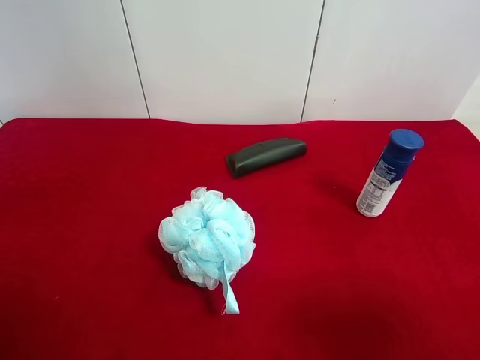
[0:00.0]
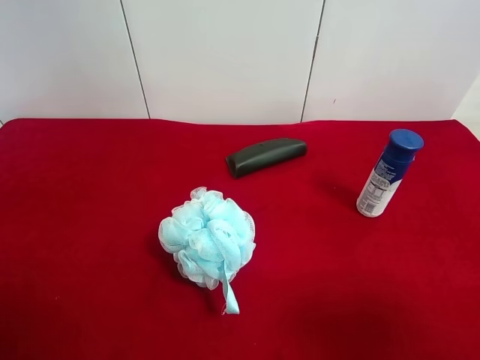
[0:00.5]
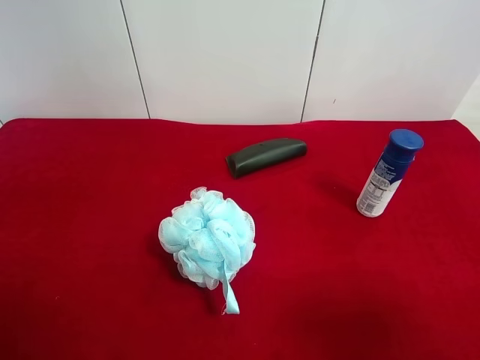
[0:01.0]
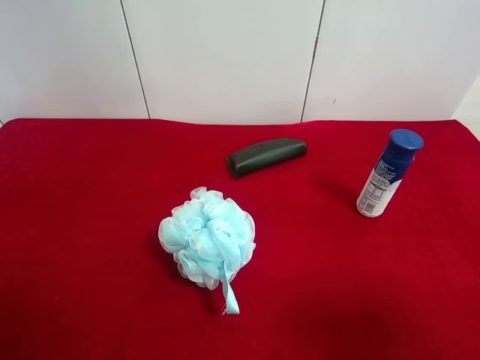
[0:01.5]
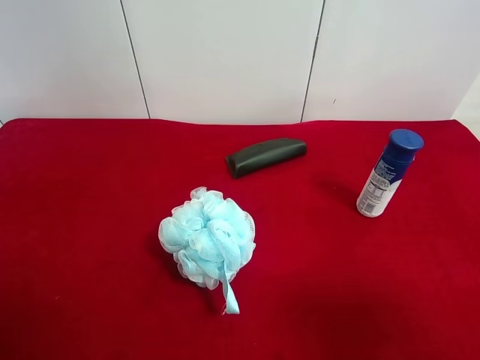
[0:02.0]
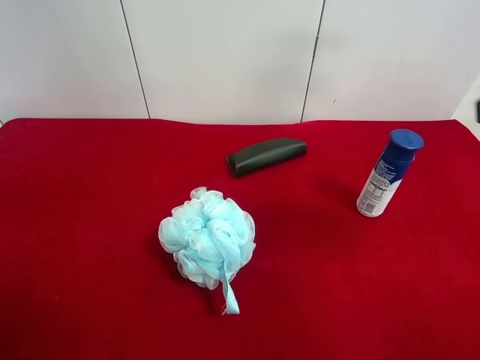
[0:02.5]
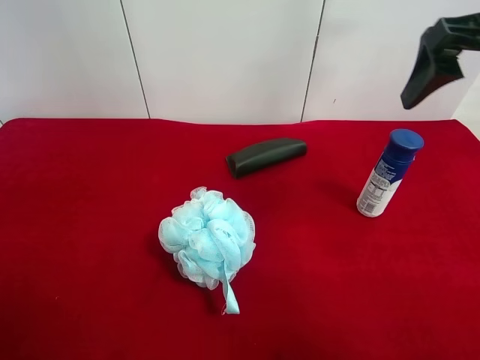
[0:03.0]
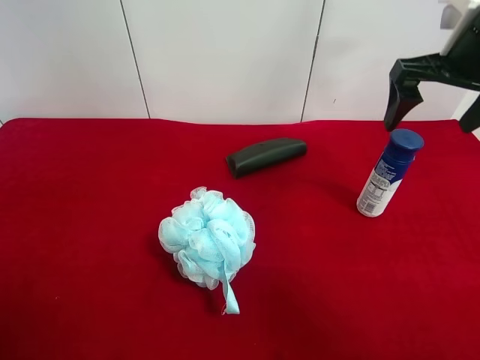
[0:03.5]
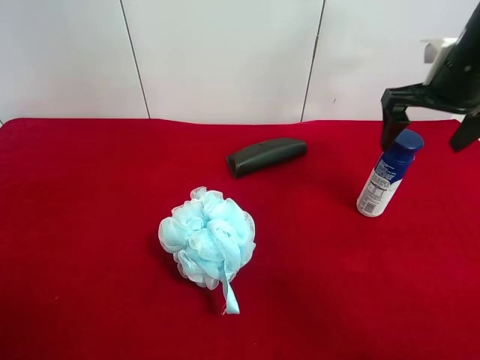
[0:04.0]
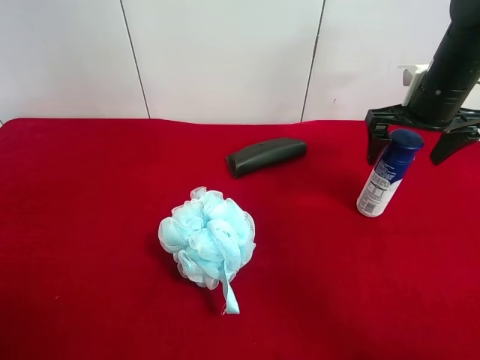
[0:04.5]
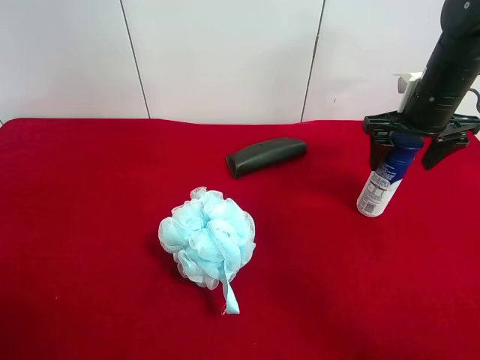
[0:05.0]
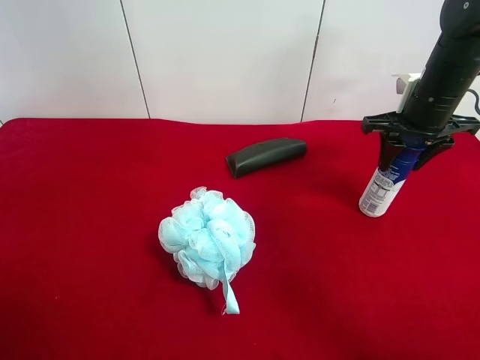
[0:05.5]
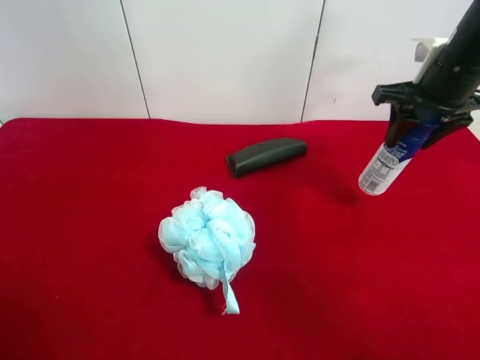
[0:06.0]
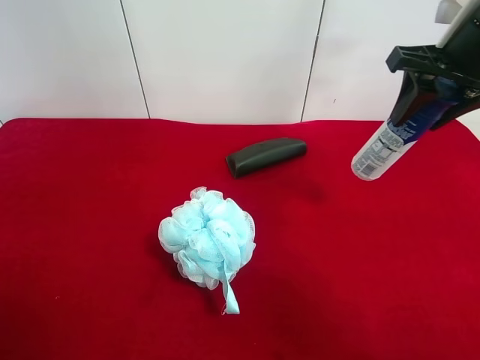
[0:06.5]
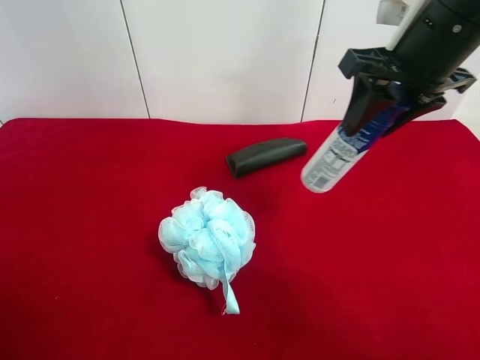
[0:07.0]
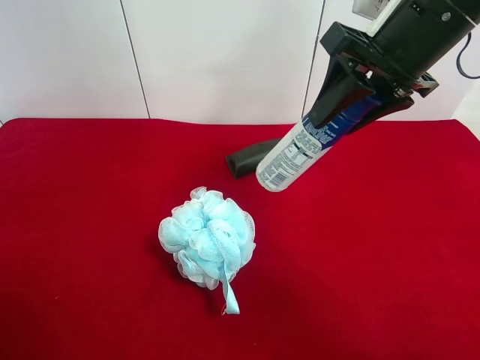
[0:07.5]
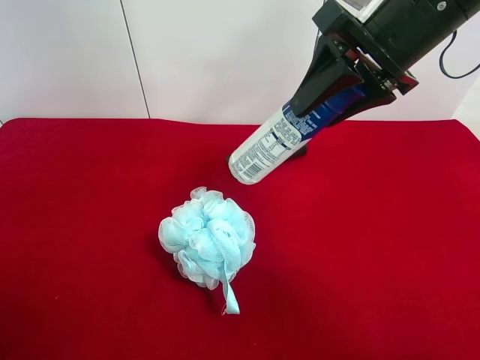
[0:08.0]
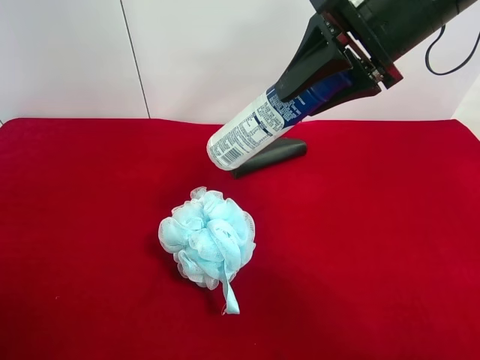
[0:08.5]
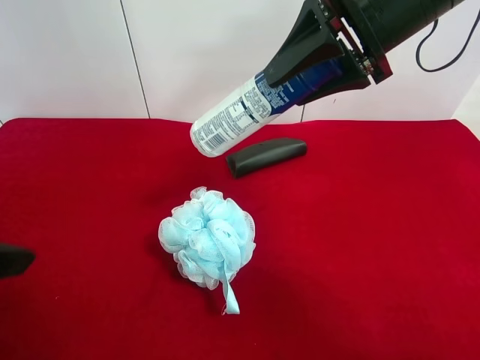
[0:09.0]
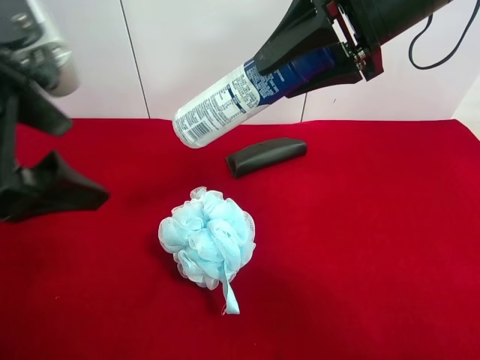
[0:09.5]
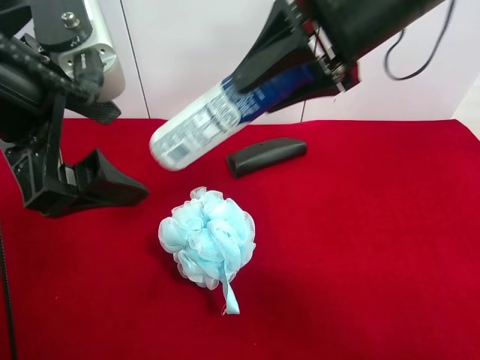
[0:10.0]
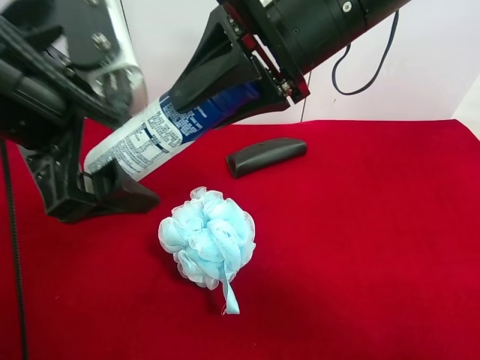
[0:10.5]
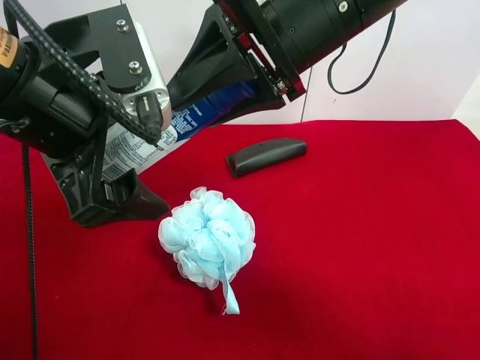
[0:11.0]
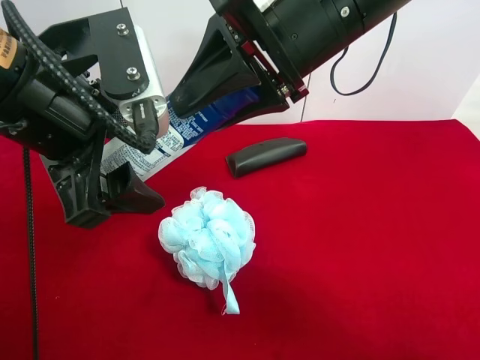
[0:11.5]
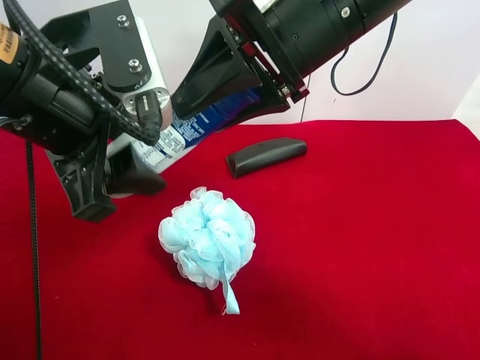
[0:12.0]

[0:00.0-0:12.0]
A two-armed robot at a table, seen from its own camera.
Task of the whole recording: use the right gripper to pick up the item and transfer it from the right gripper to the left gripper.
Step, 0:00.0 to 0:05.0: Use the right gripper to grab the yogurt on the right side of the table.
0:02.0 to 0:04.0: The right gripper is displaced forward by roughly 30 cm.
0:04.0 to 0:06.0: The right gripper closes its fingers.
0:06.0 to 0:08.0: The right gripper heads to the left, upward and backward, covering roughly 15 cm.
0:08.0 to 0:10.0: The left gripper goes roughly 20 cm forward and to the right.
0:10.0 to 0:12.0: The left gripper closes up.

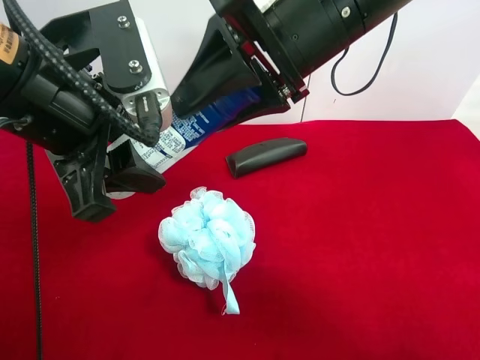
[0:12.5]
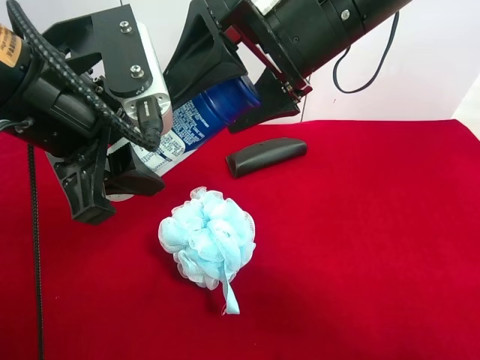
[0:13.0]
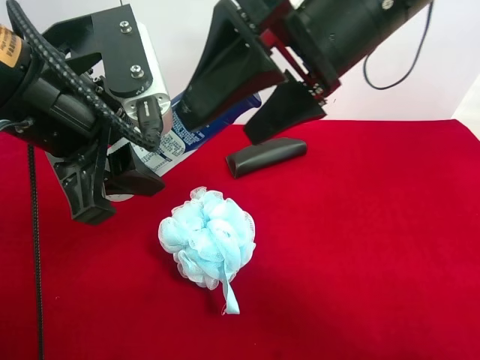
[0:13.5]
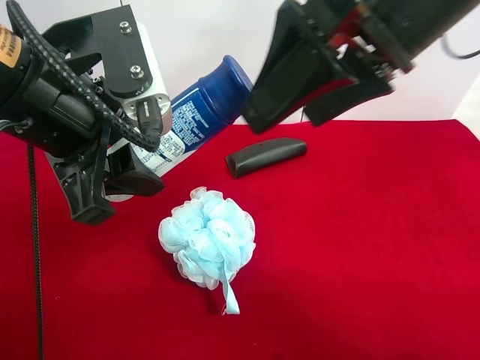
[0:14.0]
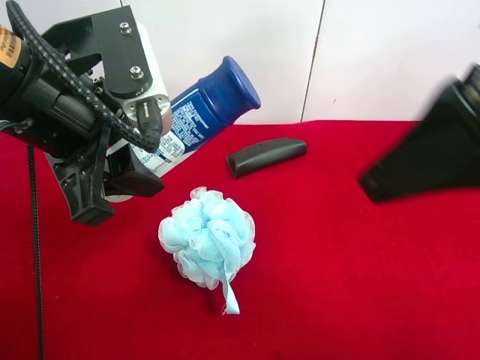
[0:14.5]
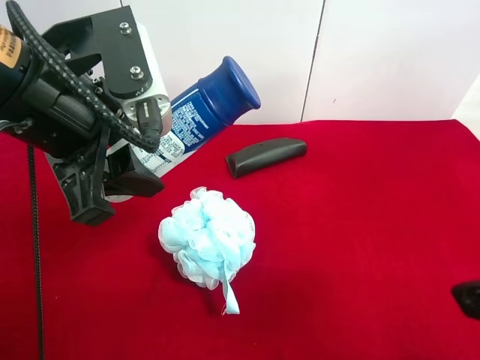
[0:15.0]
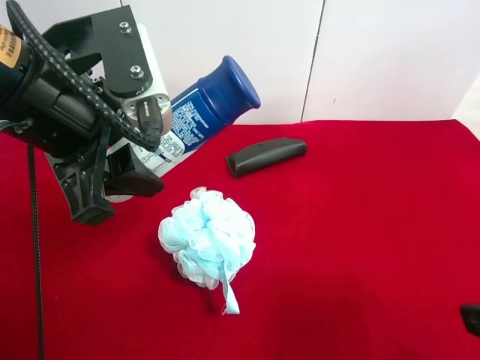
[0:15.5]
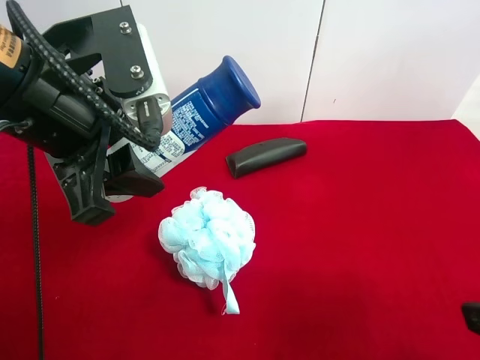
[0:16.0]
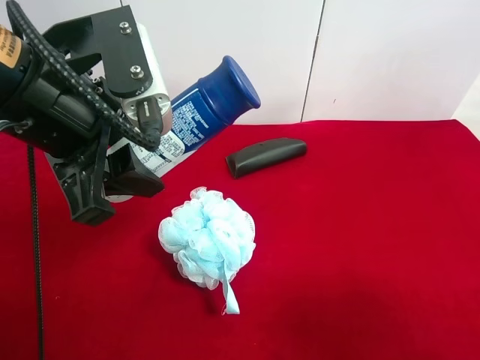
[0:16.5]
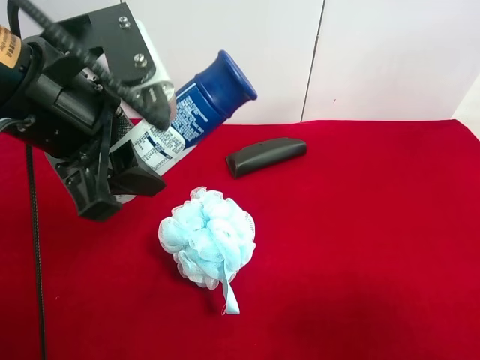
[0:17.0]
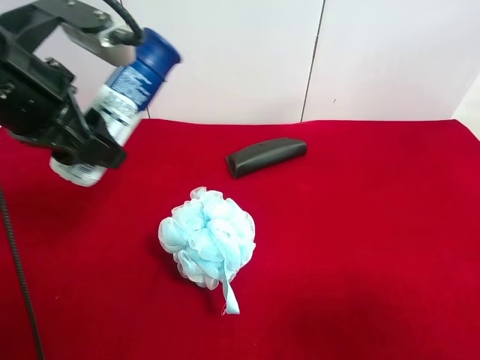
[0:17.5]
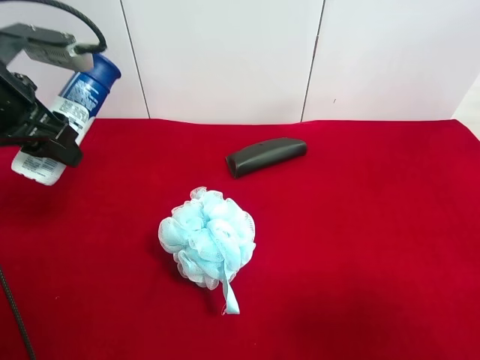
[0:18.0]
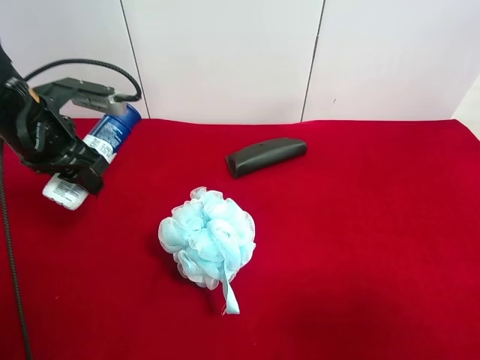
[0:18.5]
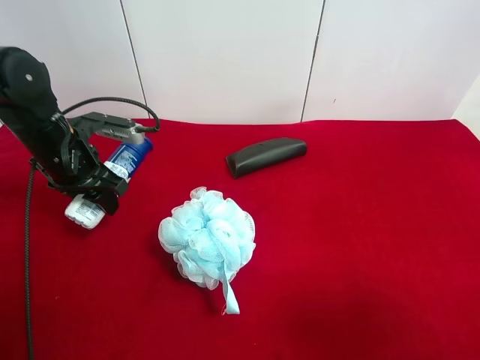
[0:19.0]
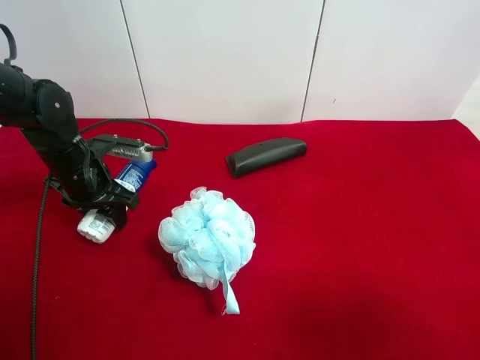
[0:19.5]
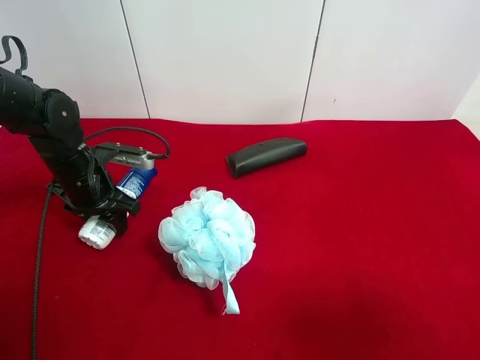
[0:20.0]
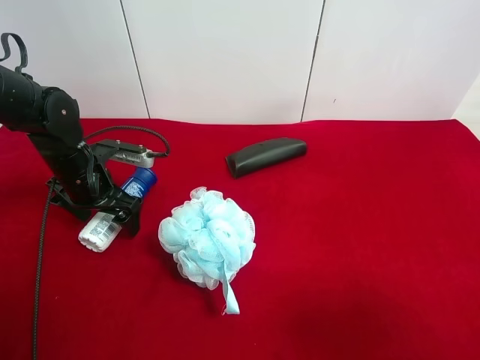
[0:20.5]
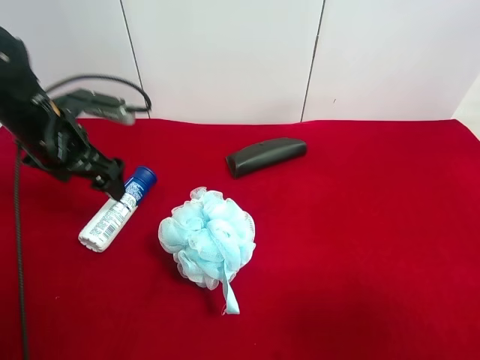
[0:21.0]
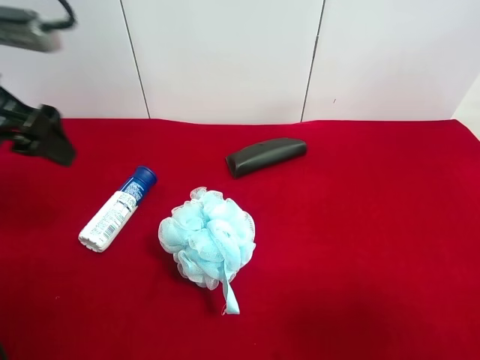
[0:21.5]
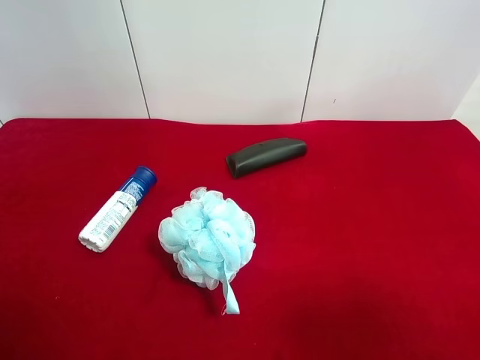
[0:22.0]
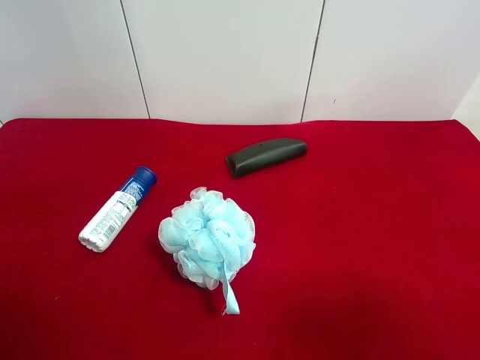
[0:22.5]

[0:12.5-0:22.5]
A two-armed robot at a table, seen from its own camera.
Task of the whole recording: use the right gripper to pick up the item and transfer it from the right gripper to the left gripper.
Step, 0:14.5 to 0:21.0: The left gripper places yogurt on the left side of the table.
0:12.5 to 0:14.5: The right gripper goes some 15 cm backward and to the right, and opens.
0:14.5 to 0:16.5: The right gripper shifts some 20 cm backward, to the right and downward.
0:16.5 to 0:18.5: The left gripper shifts approximately 20 cm forward, to the left and downward.
0:18.5 to 0:20.5: The left gripper travels downward by approximately 10 cm, and opens its fingers.
0:20.5 to 0:22.5: The left gripper travels backward and upward by some 35 cm.
